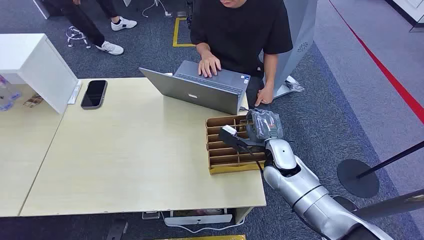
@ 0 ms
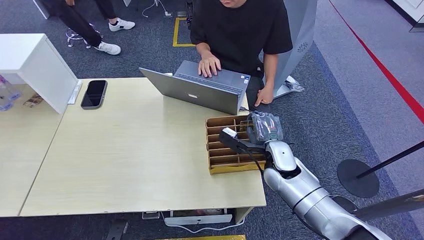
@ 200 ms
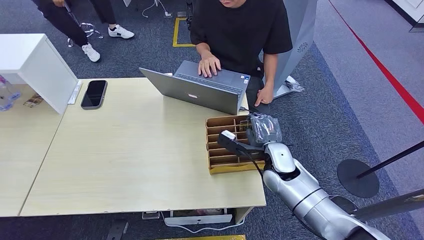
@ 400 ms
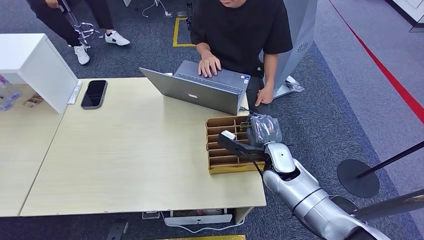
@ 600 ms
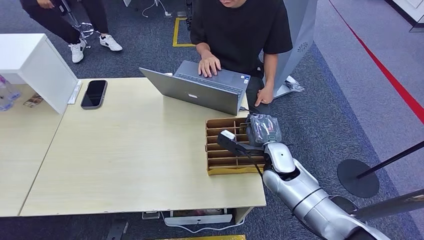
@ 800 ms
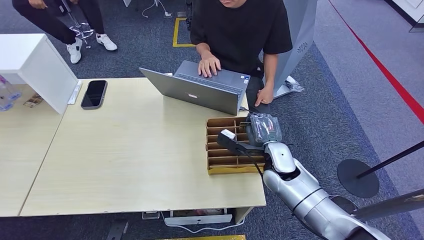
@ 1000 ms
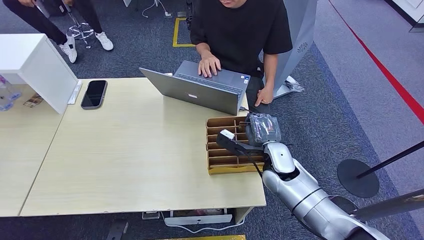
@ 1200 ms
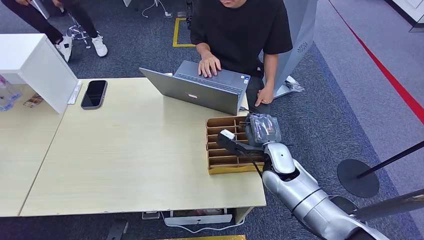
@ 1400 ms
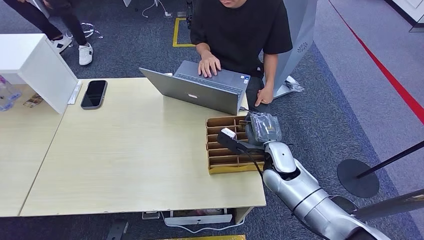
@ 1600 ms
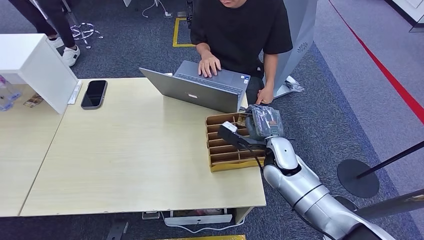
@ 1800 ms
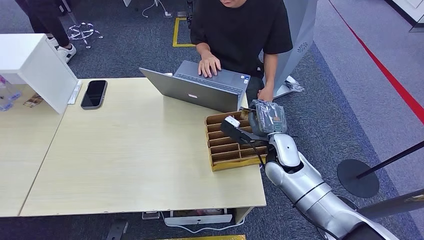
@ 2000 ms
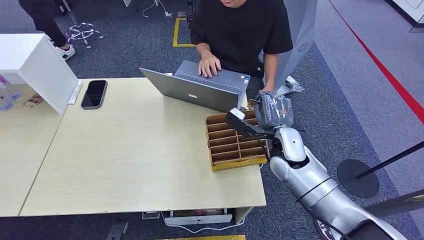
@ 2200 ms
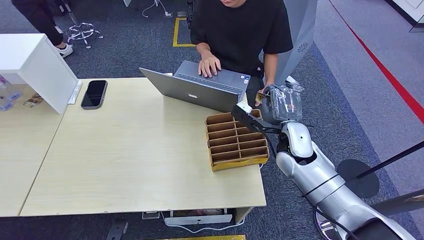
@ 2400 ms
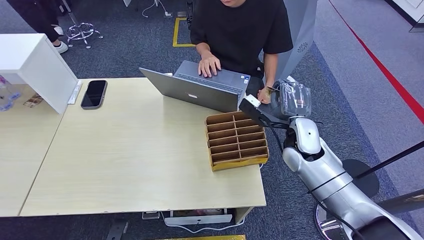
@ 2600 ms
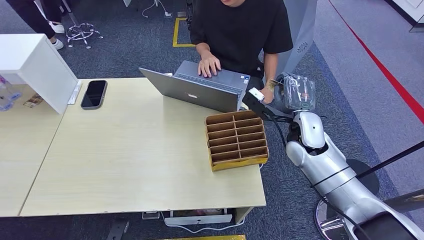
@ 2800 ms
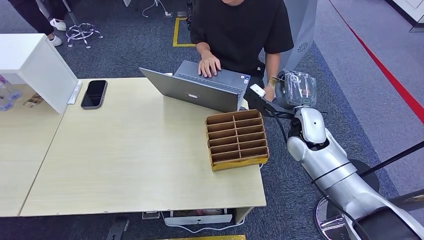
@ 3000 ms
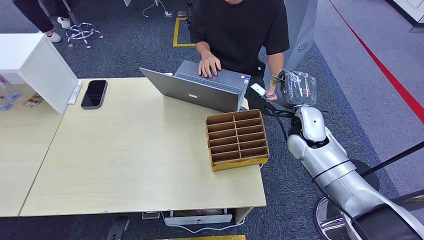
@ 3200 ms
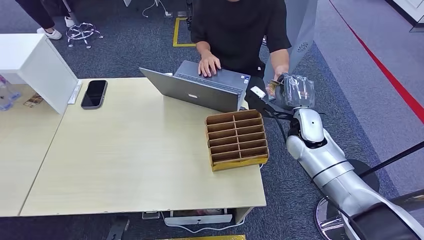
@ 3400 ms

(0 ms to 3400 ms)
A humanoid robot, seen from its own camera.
Step, 0 ms - 2200 ms: Pick up the room card from the card holder.
Step, 2400 ms - 3200 ms: Hand the room card to the target.
1600 ms - 3400 ms: The right hand goes some 10 cm upward, to the right and forward.

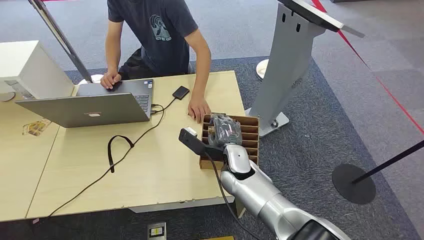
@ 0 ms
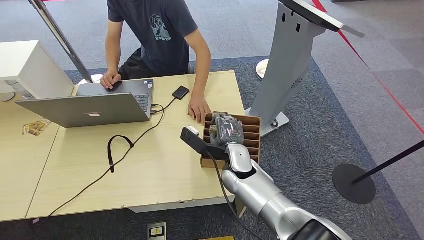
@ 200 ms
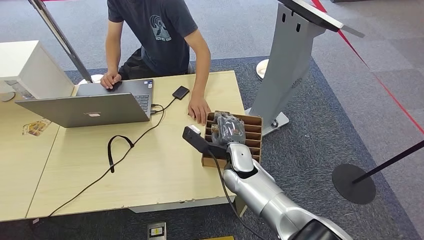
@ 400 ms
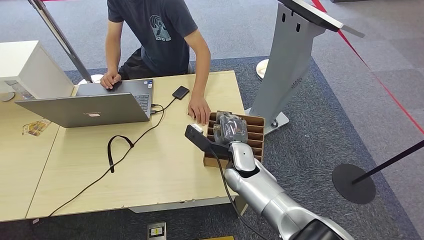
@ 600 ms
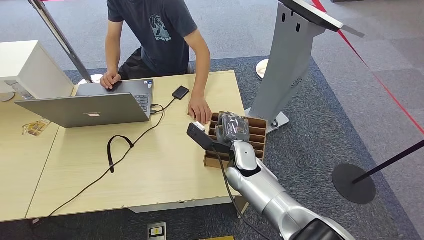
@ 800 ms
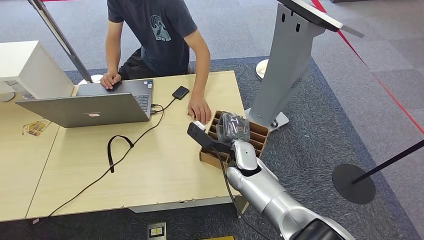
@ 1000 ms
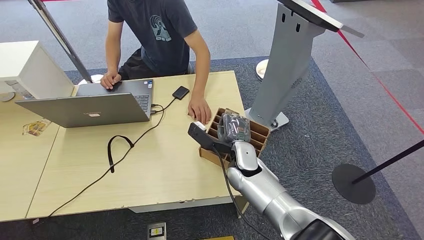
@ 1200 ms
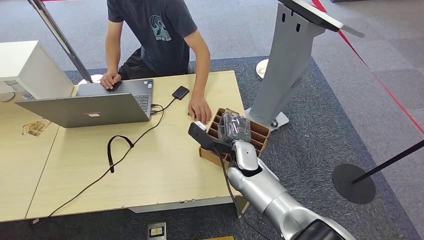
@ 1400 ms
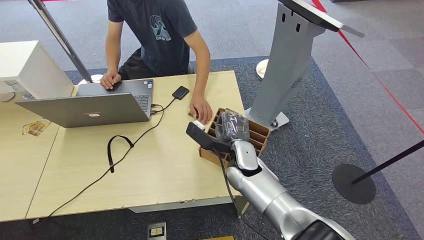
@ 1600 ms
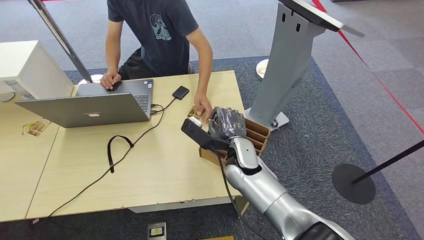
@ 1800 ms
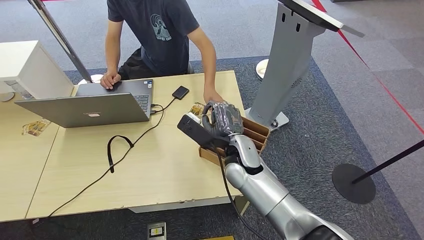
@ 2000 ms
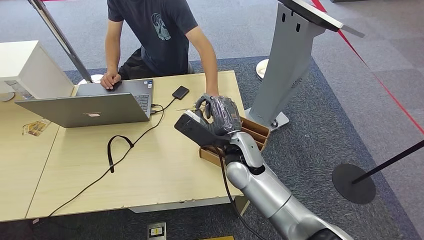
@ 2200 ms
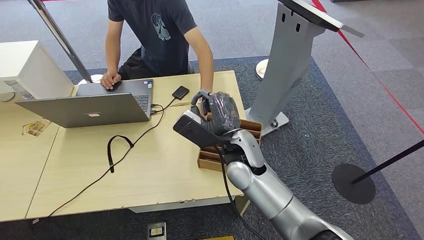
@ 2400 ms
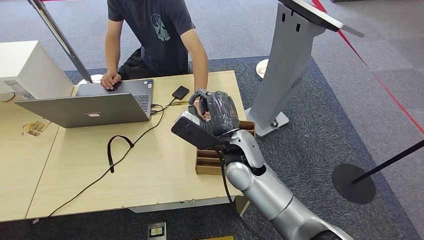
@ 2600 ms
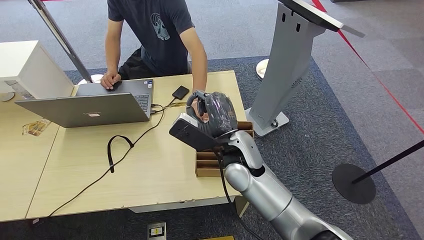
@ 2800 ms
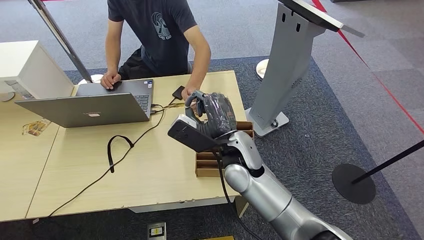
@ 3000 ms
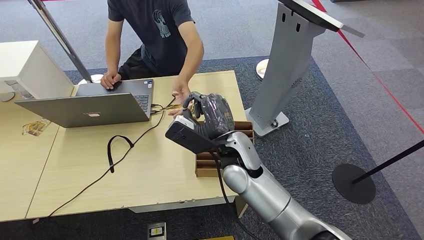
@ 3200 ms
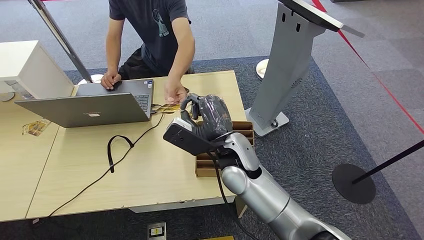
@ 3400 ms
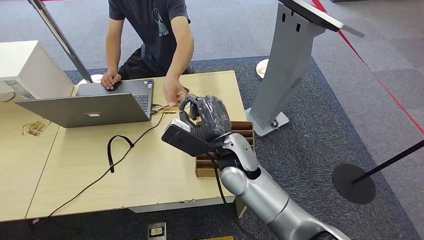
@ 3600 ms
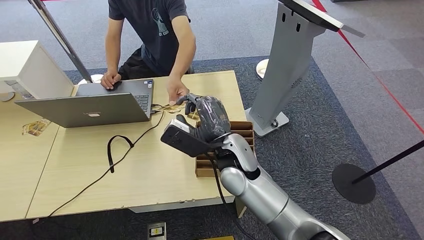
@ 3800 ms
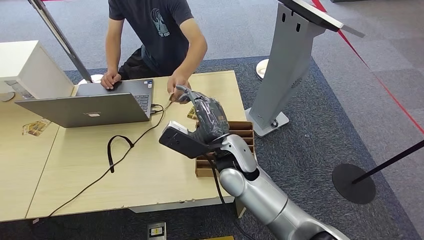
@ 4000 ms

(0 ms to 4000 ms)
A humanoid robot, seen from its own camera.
Step, 0 ms - 1600 ms: Pick up the room card from the card holder.
Step, 1800 ms - 4000 ms: Hand the room card to the target.
1400 ms - 2600 ms: The right hand shifts about 10 cm upward.
2600 ms - 4000 ms: There are only small adjustments of the hands.
